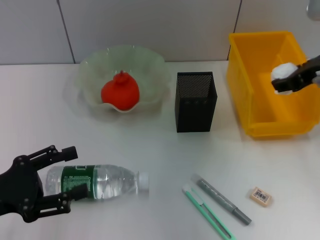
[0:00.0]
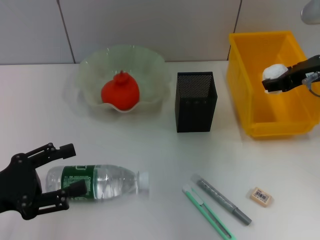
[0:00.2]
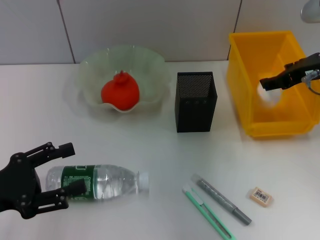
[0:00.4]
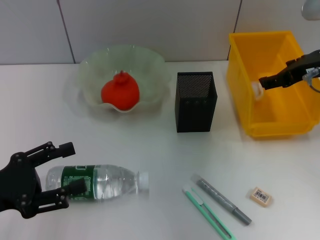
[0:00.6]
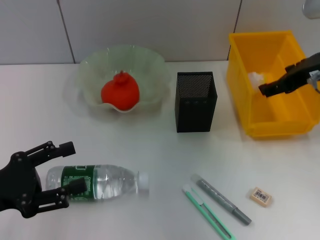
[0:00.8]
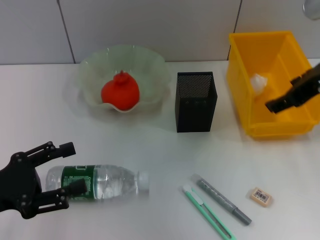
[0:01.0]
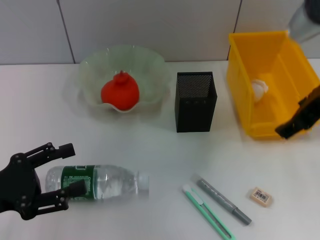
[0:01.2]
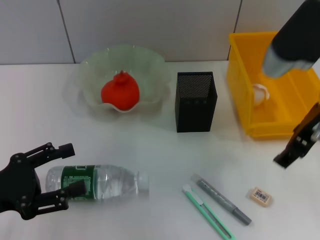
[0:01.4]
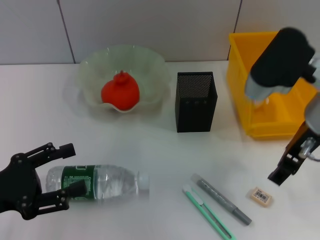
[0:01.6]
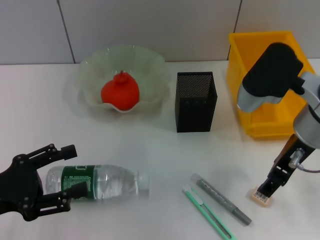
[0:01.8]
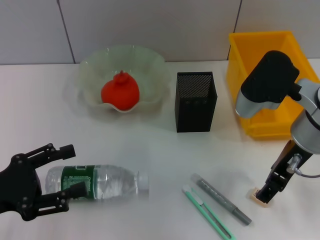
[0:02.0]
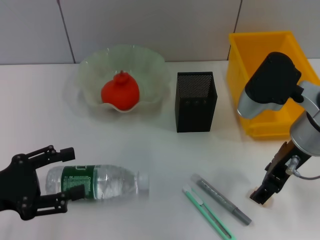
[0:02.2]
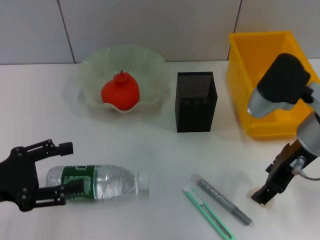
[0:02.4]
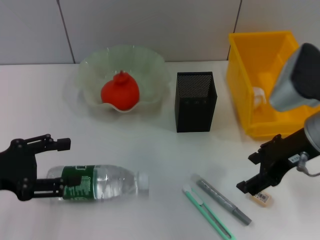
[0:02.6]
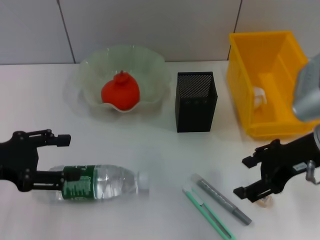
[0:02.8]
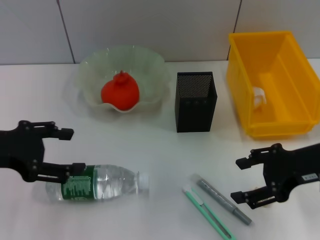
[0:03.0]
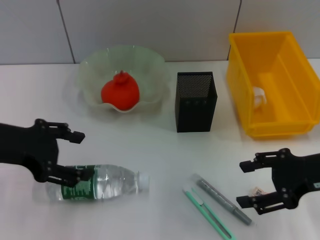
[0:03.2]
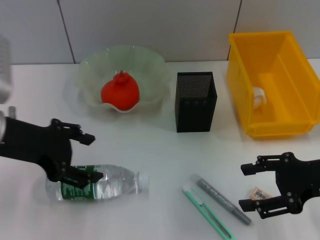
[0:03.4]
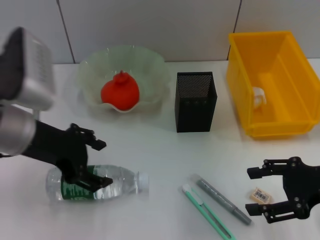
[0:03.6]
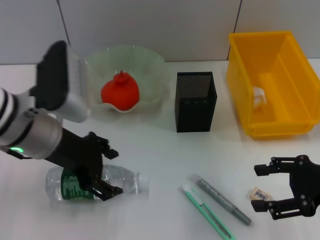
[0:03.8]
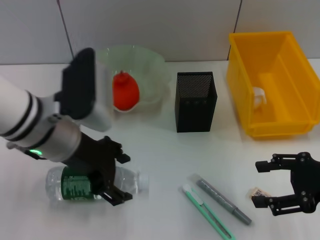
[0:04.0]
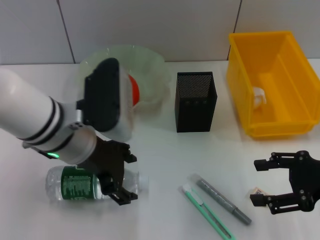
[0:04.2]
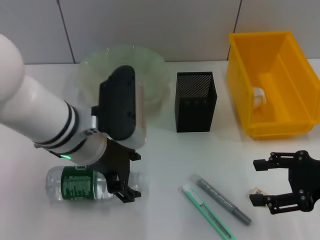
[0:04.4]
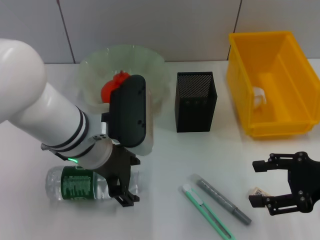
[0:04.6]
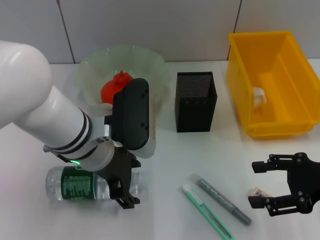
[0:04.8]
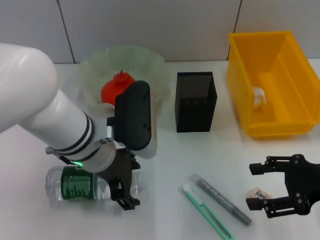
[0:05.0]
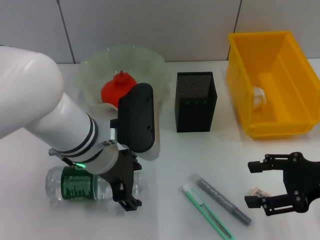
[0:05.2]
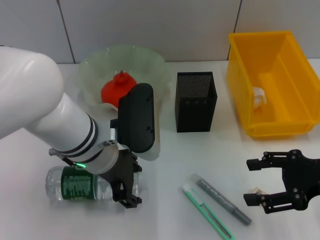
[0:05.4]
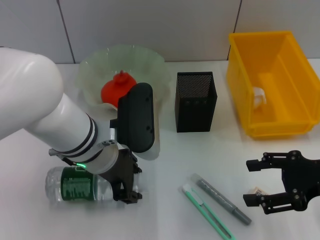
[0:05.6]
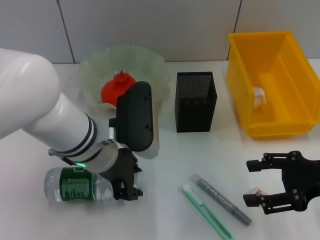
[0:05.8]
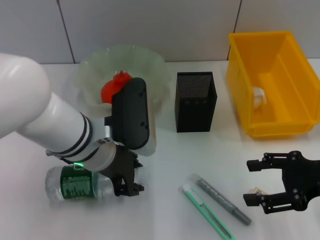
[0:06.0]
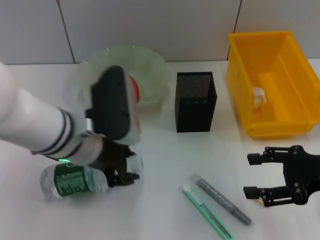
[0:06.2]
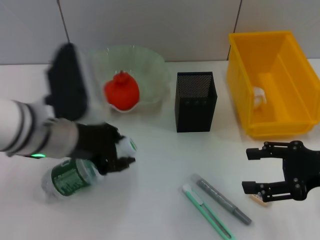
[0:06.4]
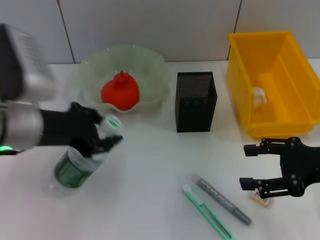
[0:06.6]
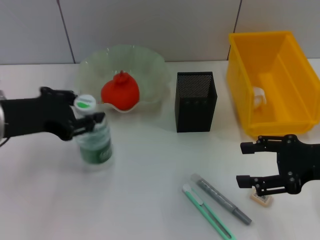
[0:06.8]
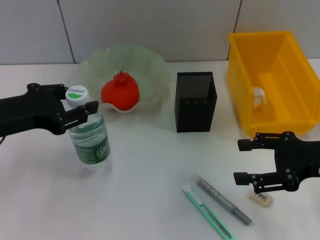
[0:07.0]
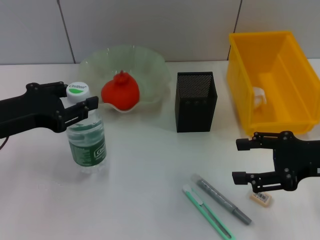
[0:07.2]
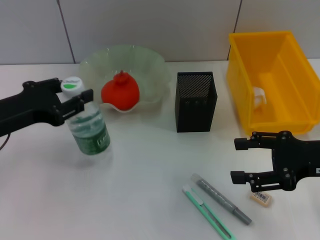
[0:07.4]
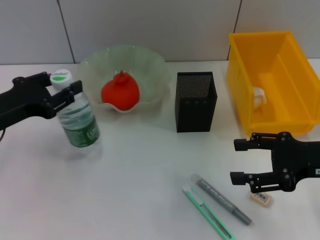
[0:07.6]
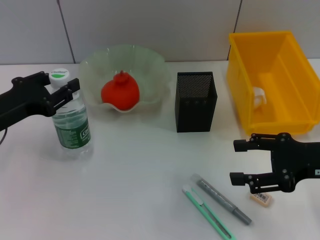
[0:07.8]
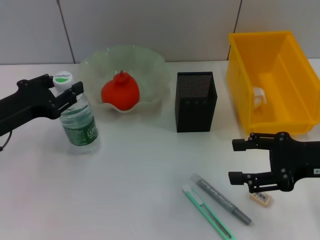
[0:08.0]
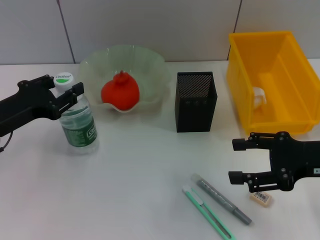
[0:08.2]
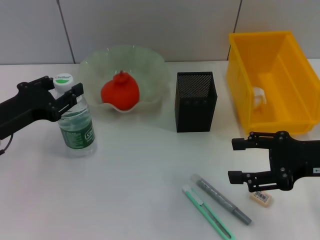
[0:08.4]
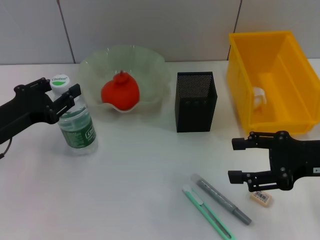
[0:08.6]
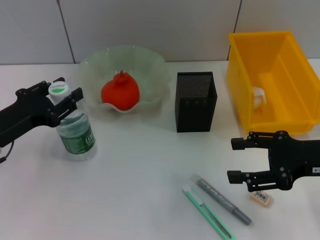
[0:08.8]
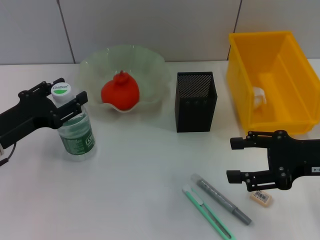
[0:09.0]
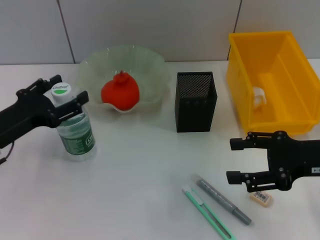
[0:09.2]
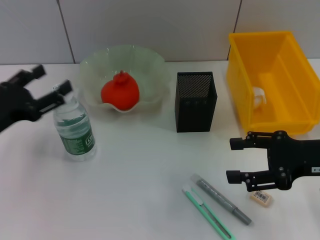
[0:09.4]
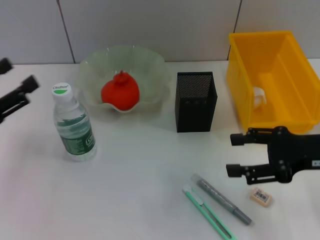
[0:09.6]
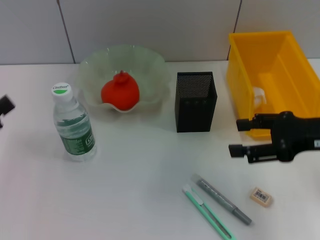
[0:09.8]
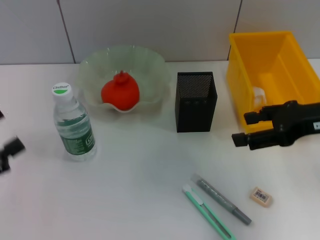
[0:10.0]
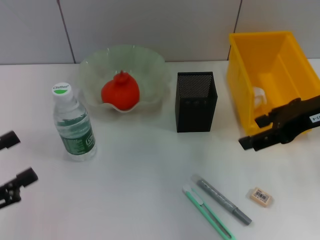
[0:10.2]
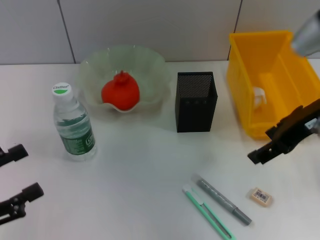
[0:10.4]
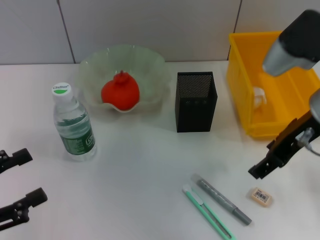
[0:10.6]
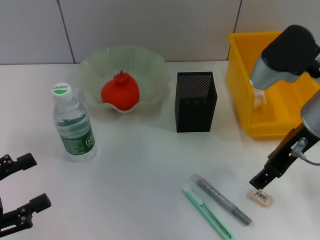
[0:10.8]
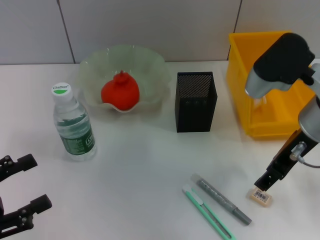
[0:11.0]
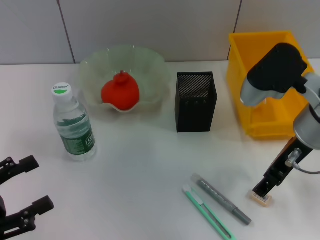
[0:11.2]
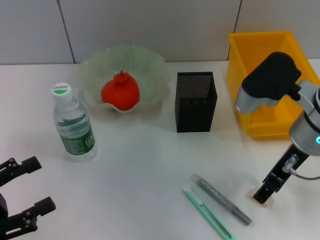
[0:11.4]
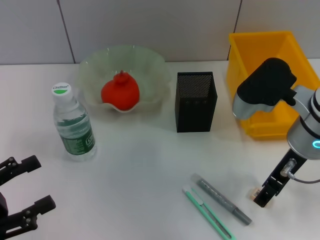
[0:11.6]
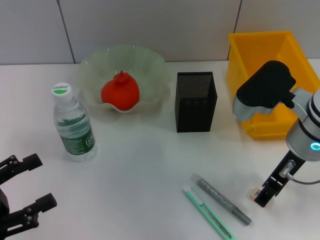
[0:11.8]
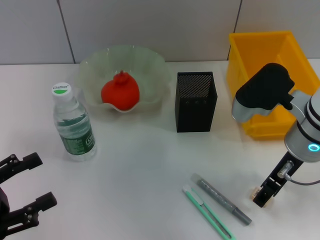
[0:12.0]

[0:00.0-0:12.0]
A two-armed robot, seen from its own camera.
Step, 0:00.6 to 0:05.6: Grab the water bottle with the left hand.
Step, 0:05.8 to 0:09.0: Place the water bottle on the table with the left hand.
0:00.0 to 0:01.6: The right gripper travels to the left and backward by some 10 cm.
0:01.6 to 0:03.0: The right gripper goes about 5 cm to the right; the left gripper goes roughly 10 cm upward and forward.
0:03.0 to 0:04.4: The right gripper heads to the right, covering about 5 cm. Meanwhile the left gripper goes some 20 cm to the right.
0:04.4 to 0:06.0: The left gripper closes.
0:06.0 to 0:07.6: The left gripper is displaced to the left by approximately 15 cm.
0:07.6 to 0:09.0: The grippers move only a little.
0:09.0 to 0:10.4: The left gripper heads backward and to the left, covering about 15 cm, and opens. Meanwhile the right gripper travels upward and to the left by approximately 10 cm.
0:10.4 to 0:12.0: The right gripper goes approximately 10 cm downward.

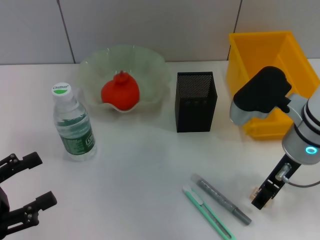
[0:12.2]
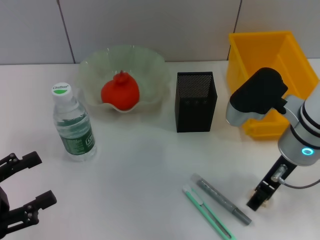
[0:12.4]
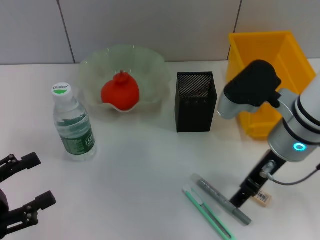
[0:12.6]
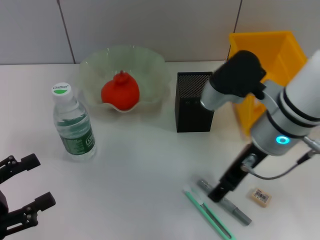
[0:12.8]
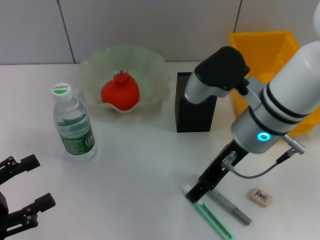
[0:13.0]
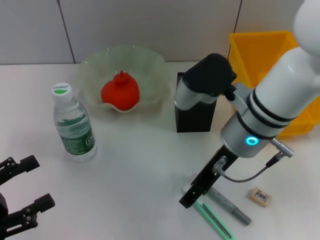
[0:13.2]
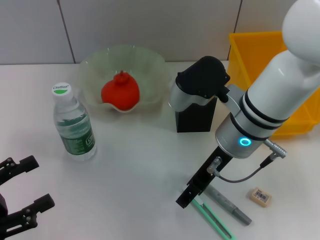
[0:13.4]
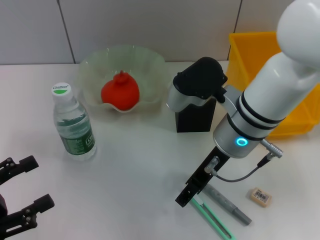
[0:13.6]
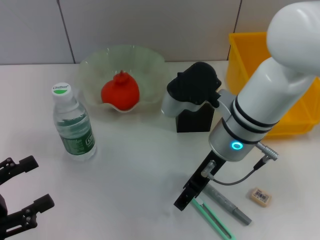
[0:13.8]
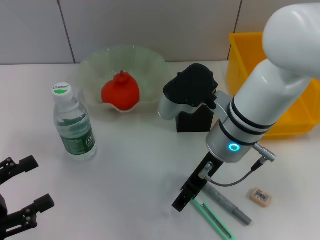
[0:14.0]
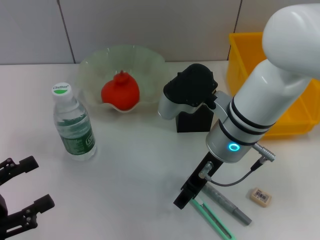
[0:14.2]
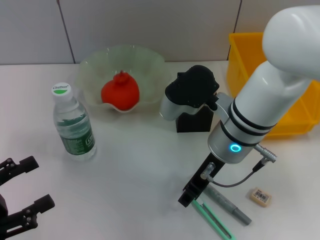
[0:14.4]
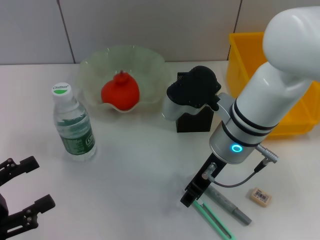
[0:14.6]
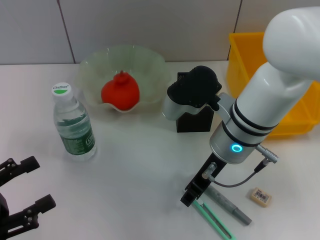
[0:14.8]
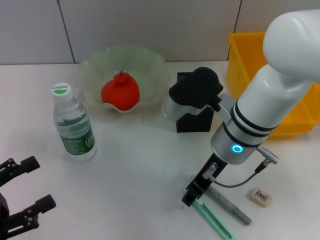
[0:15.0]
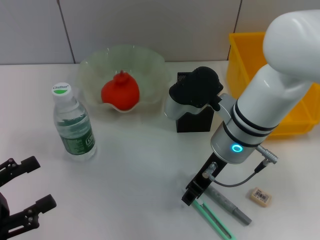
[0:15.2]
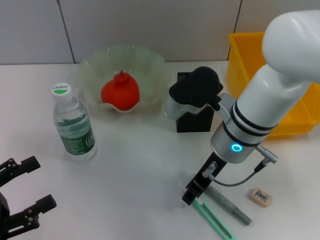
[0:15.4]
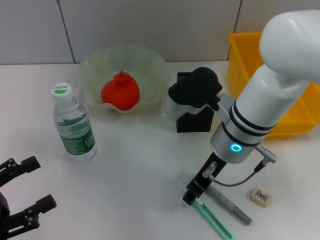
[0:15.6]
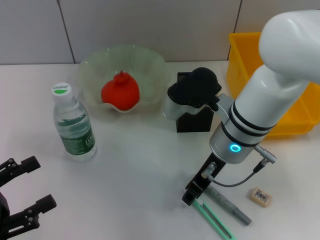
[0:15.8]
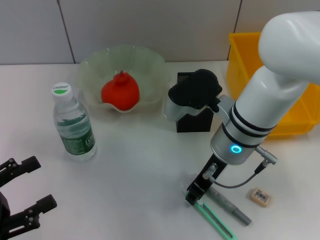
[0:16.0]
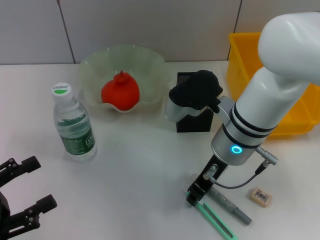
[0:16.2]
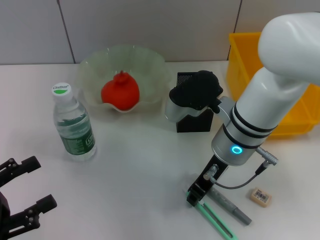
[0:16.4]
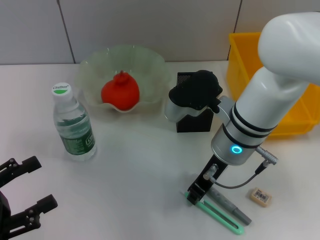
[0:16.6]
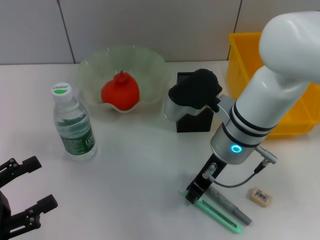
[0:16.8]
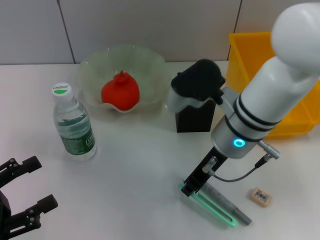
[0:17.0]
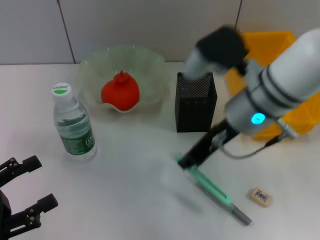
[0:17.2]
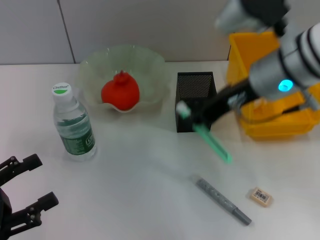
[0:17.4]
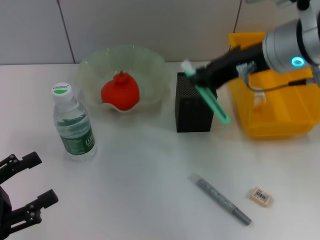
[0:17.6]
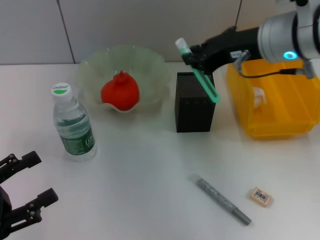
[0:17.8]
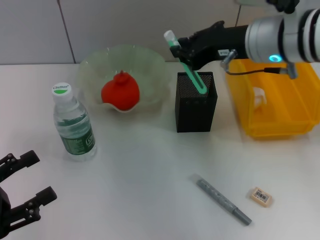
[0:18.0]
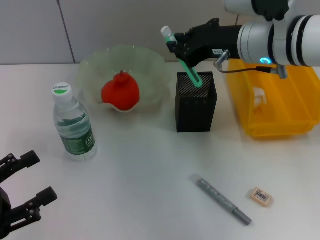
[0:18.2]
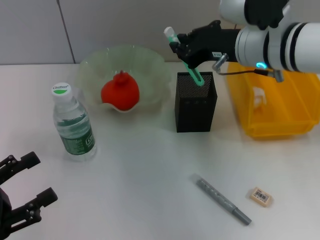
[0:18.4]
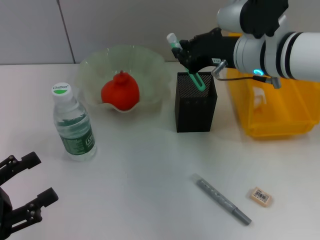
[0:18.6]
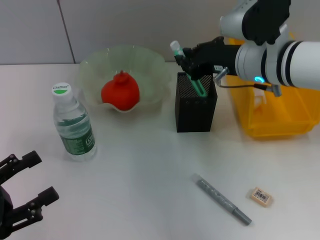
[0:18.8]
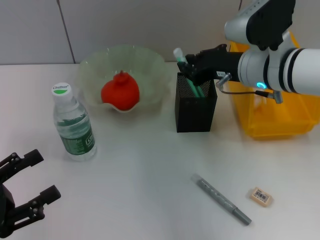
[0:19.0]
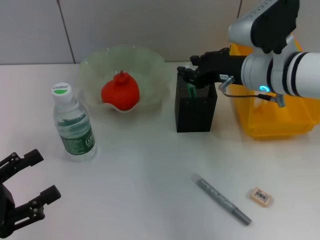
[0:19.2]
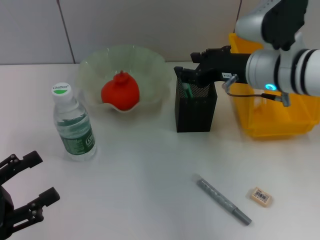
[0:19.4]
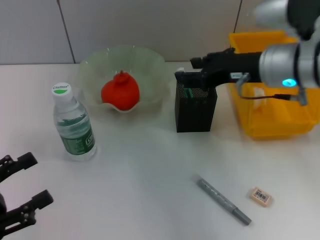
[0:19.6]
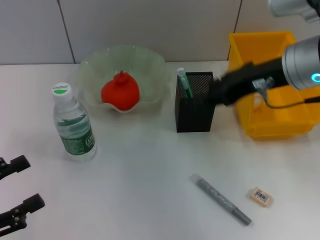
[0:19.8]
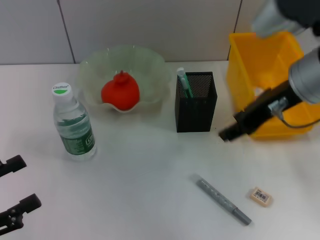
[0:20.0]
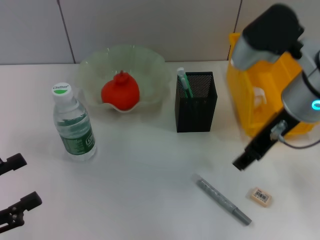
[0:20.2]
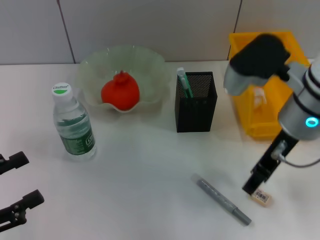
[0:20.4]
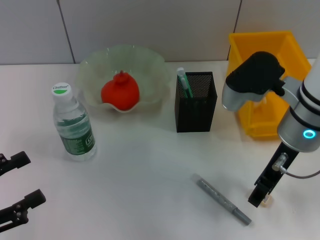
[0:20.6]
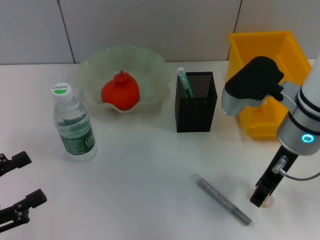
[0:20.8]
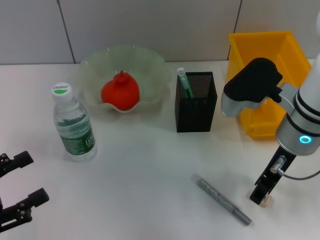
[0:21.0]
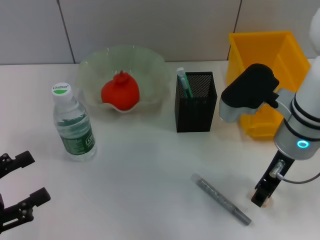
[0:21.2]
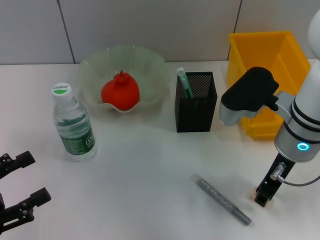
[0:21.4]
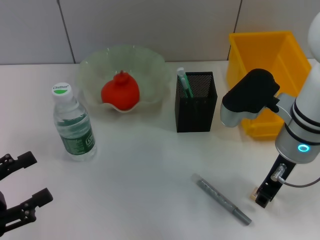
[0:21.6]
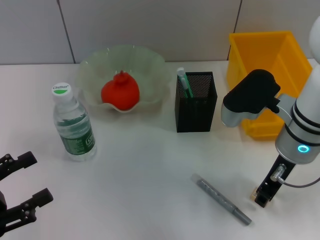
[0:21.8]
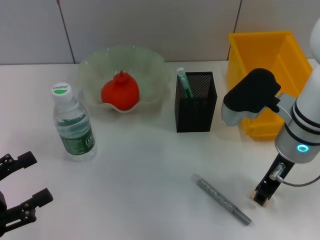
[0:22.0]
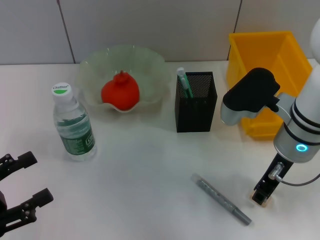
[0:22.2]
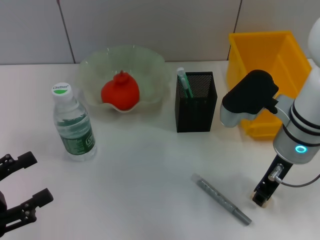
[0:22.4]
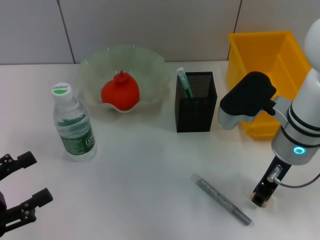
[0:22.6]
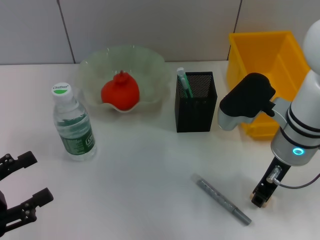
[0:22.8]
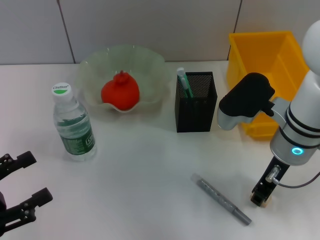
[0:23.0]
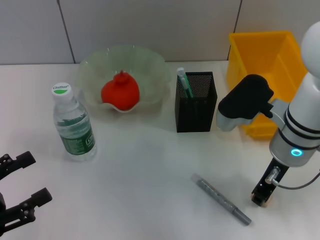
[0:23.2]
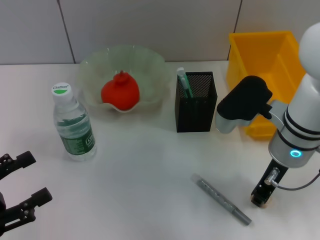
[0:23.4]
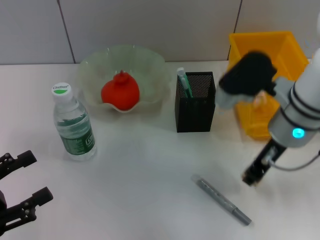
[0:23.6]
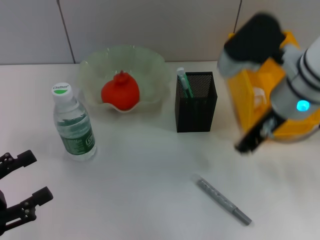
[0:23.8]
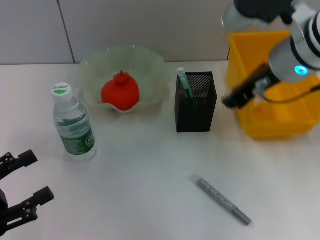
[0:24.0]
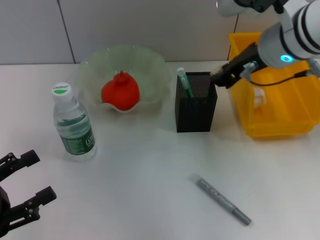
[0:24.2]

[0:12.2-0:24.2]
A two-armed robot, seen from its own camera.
Step, 0:12.2 to 0:16.6: Grab the blue utility knife with the right hand.
Step, 0:17.0 to 0:19.2: Place the blue utility knife into the pen holder with the right hand.
Step, 0:19.4 to 0:23.2: Grab the eraser with the right hand.
0:12.2 to 0:13.8: The right gripper goes approximately 10 cm to the left.
0:13.8 to 0:15.2: The right gripper closes.
0:15.2 to 0:16.6: The two grippers keep their place.
0:16.6 to 0:18.2: The right gripper travels upward by roughly 10 cm.
0:18.2 to 0:19.8: The right gripper changes place by roughly 5 cm, and opens up.
0:19.8 to 0:21.2: The right gripper travels downward by roughly 10 cm.
0:21.2 to 0:22.6: The right gripper closes up.
0:22.6 to 0:24.2: The right gripper moves upward and forward, some 10 cm.
